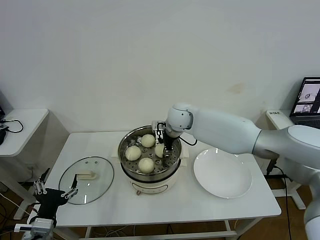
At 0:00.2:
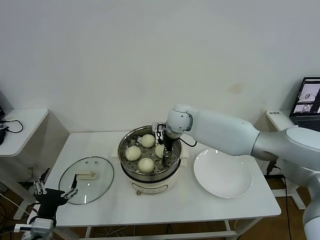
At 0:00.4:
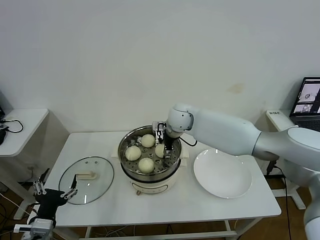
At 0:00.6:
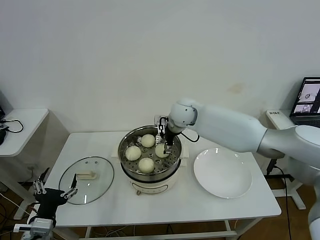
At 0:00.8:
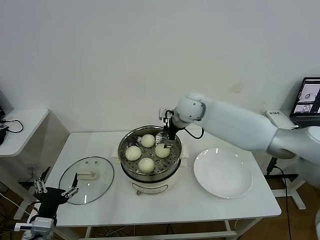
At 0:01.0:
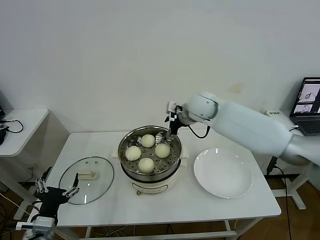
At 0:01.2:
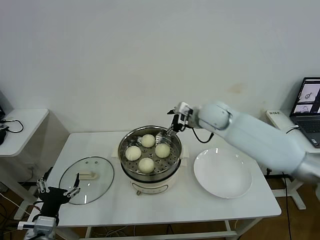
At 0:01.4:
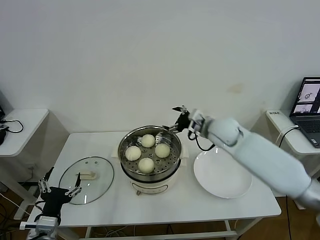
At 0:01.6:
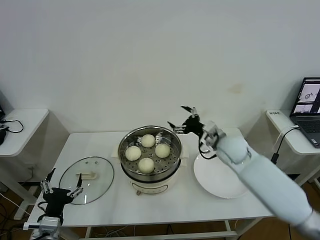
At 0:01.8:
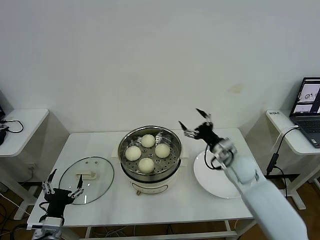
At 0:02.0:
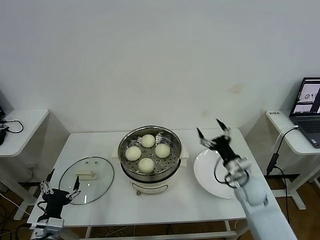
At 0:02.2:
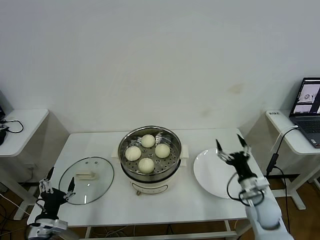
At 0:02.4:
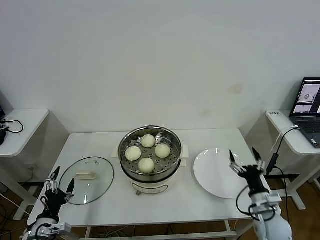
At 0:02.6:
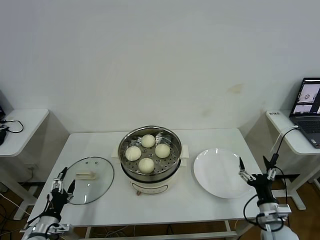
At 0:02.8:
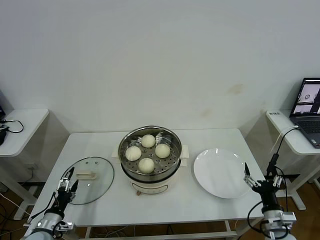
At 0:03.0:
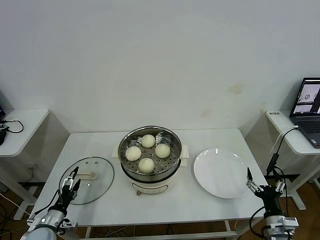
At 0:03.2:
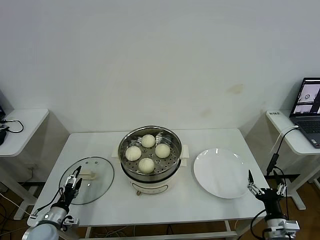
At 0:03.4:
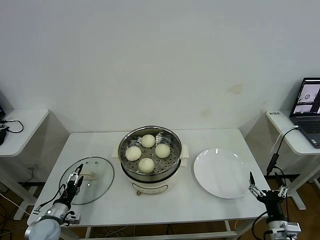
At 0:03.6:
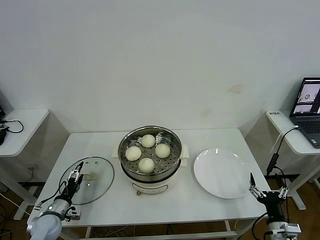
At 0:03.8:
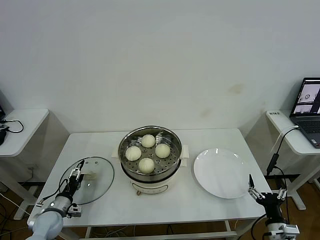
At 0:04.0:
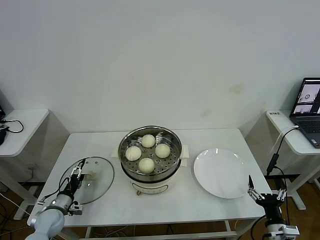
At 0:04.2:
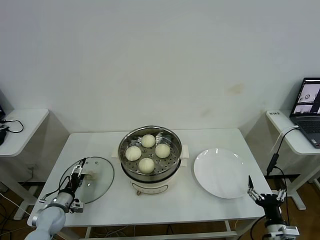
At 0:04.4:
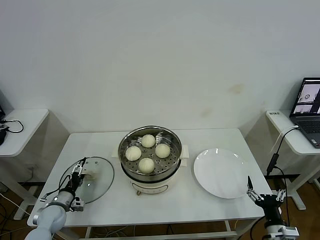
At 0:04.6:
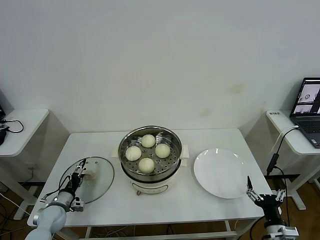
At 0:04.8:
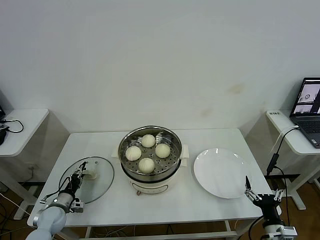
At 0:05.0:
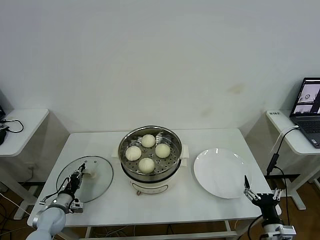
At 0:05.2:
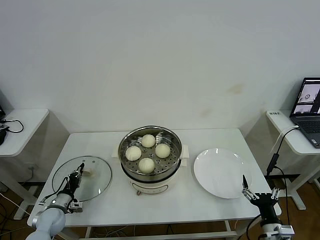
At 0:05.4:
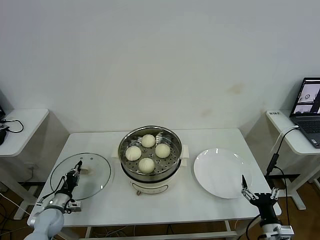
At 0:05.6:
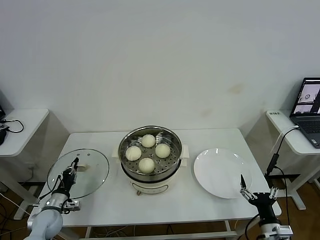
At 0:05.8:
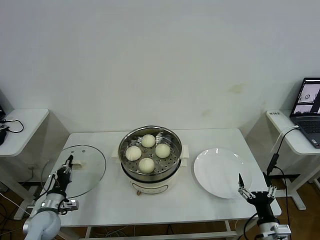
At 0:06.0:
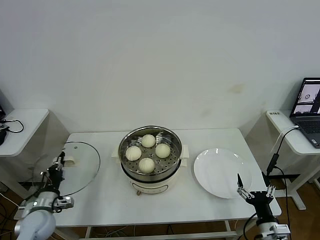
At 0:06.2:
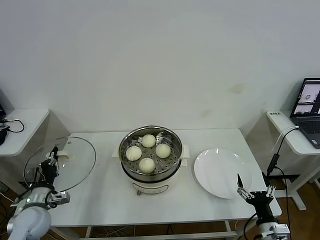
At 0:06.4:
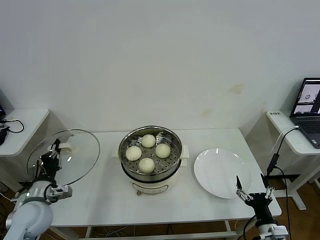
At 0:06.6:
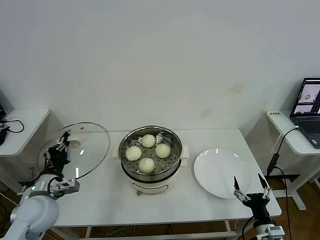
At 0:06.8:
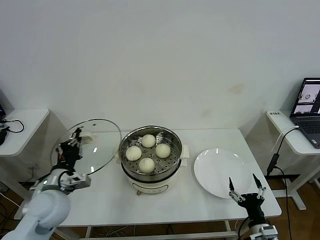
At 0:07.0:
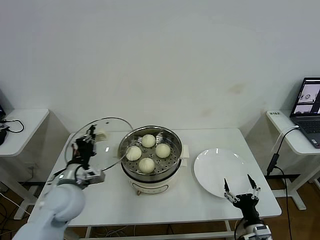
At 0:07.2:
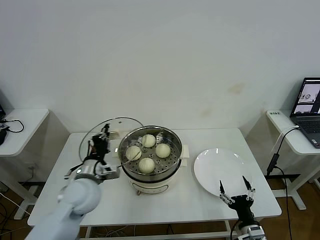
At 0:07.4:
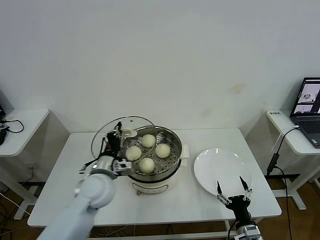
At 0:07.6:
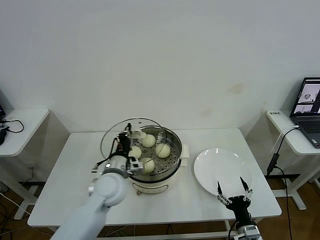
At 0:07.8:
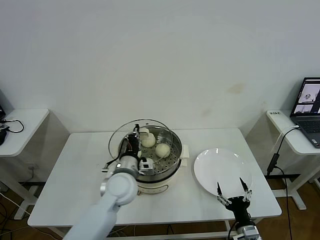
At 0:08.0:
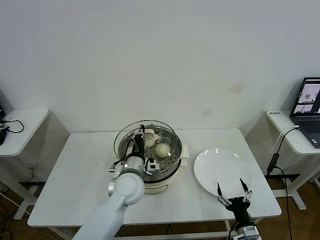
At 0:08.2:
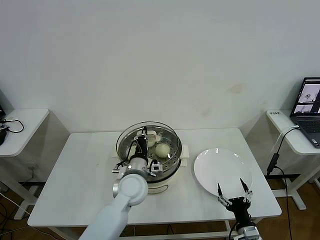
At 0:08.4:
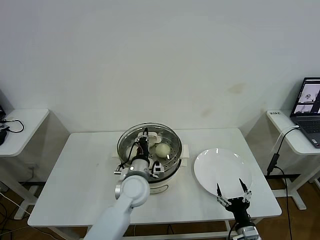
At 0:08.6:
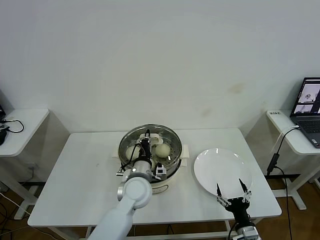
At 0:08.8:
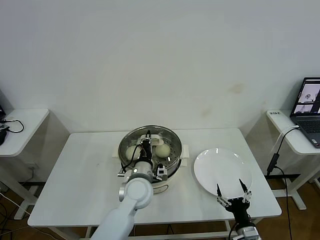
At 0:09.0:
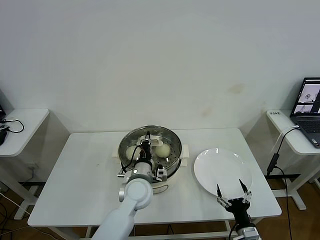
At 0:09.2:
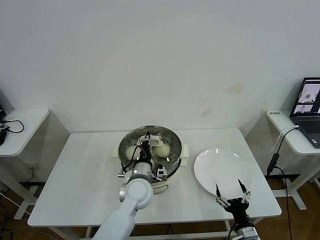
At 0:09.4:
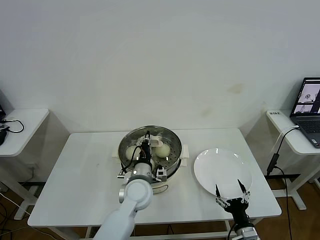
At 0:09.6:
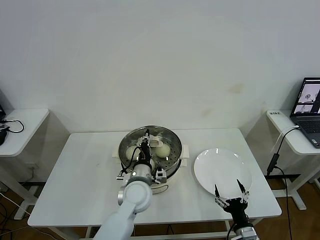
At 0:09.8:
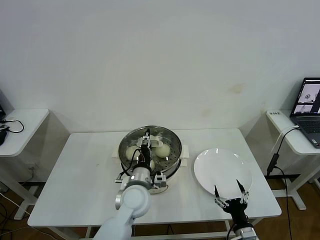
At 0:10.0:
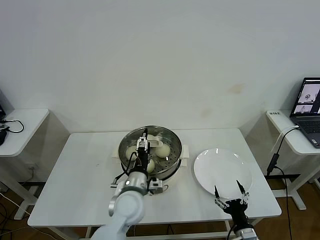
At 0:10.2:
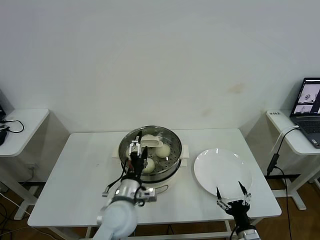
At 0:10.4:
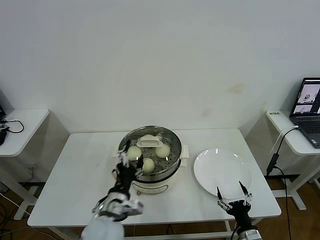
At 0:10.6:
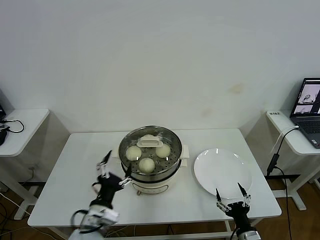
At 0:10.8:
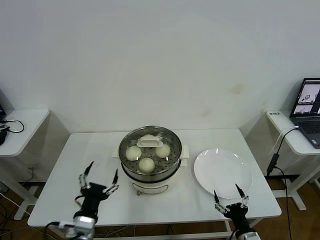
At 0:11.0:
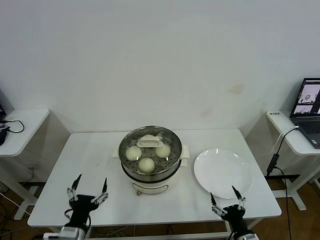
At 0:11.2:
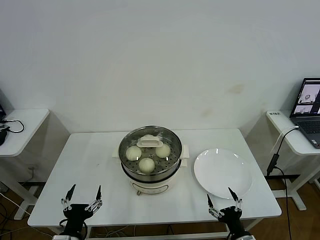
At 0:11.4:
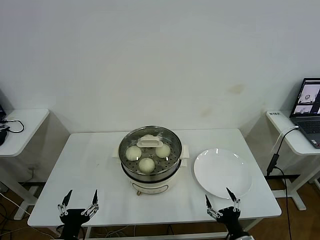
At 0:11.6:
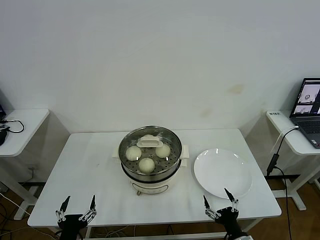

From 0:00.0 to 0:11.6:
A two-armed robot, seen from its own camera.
Task of the whole recording: take steamed baozi put them in steamer then cover it.
Step, from 0:00.8 to 0:05.2: Grasp the pot lid with left gripper.
Step, from 0:05.4 to 0:10.2: Place the pot lid on the steamer with left gripper.
From 0:00.0 to 0:01.4: The right gripper shifts about 15 cm to the right and backward, and opens up.
From 0:01.4 to 0:02.8: The right gripper shifts approximately 40 cm backward, downward and to the right; the left gripper shifts approximately 15 cm downward, to the left and forward.
From 0:02.8 to 0:04.4: The left gripper travels forward by approximately 10 cm.
From 0:04.4 to 0:05.8: The left gripper ends up approximately 5 cm from where it was, and closes its fingers.
From 0:05.8 to 0:07.2: The left gripper moves upward and to the right, about 25 cm.
From 0:07.2 to 0:08.8: The left gripper is displaced to the right by about 15 cm.
From 0:08.8 to 0:10.2: The left gripper shifts approximately 5 cm backward, and opens its fingers.
From 0:10.2 to 0:11.6: The left gripper heads backward and to the left, covering approximately 25 cm.
